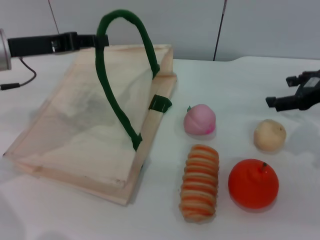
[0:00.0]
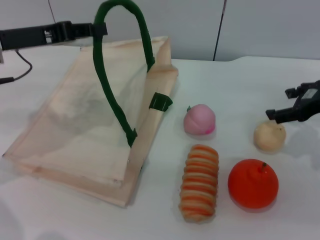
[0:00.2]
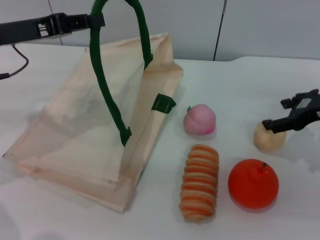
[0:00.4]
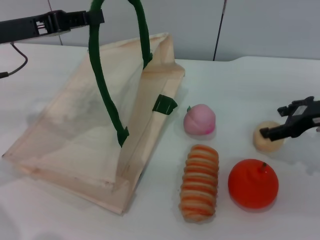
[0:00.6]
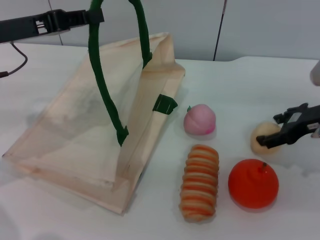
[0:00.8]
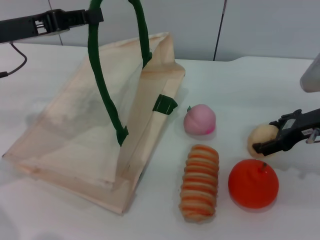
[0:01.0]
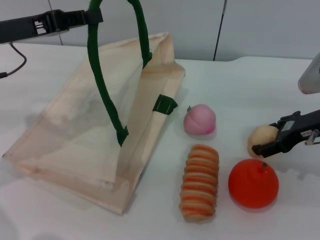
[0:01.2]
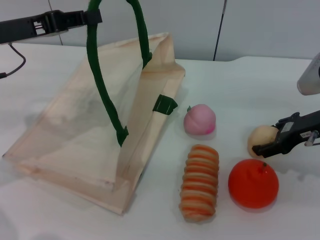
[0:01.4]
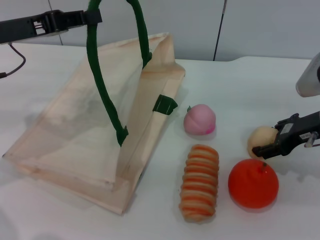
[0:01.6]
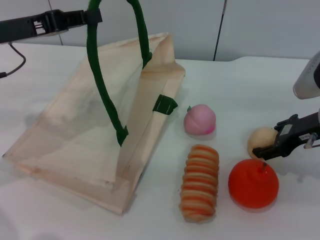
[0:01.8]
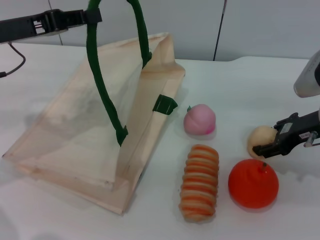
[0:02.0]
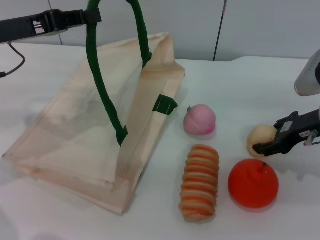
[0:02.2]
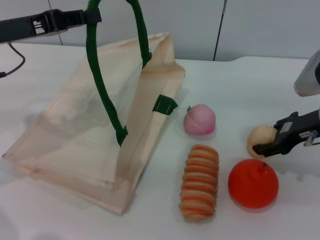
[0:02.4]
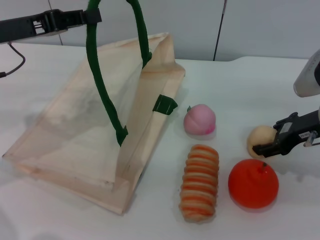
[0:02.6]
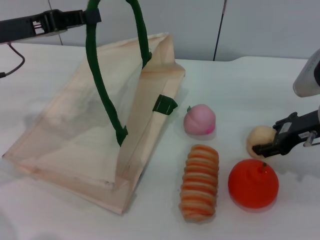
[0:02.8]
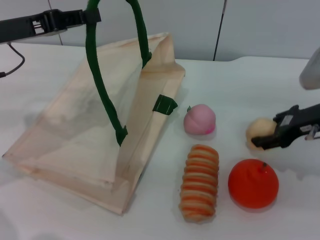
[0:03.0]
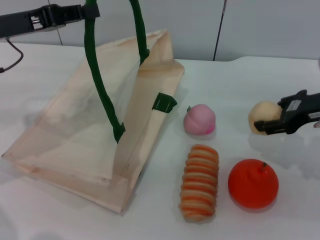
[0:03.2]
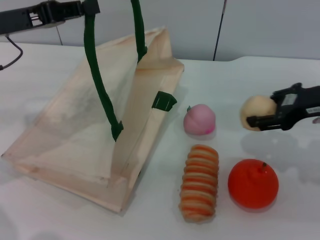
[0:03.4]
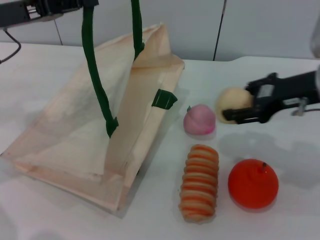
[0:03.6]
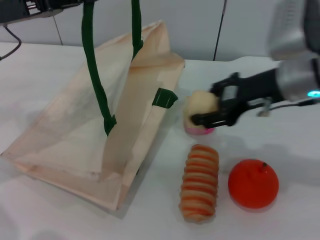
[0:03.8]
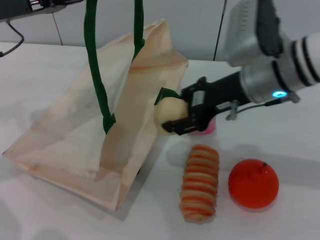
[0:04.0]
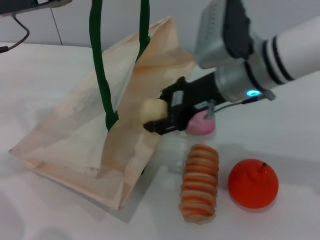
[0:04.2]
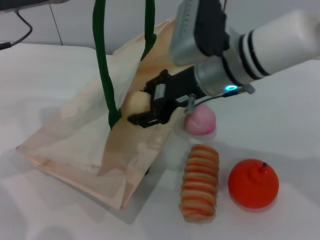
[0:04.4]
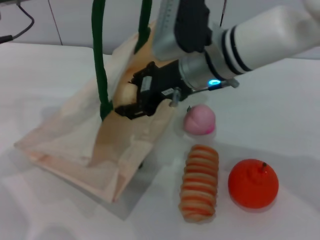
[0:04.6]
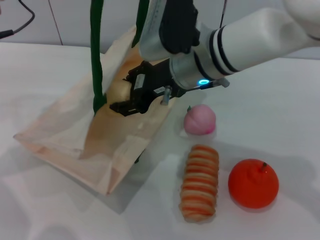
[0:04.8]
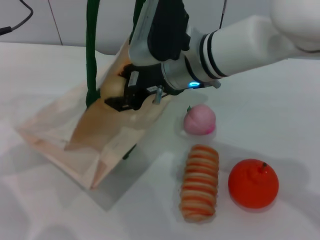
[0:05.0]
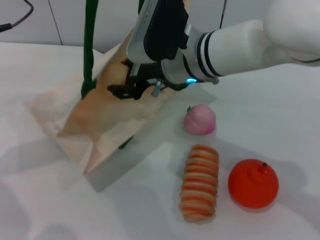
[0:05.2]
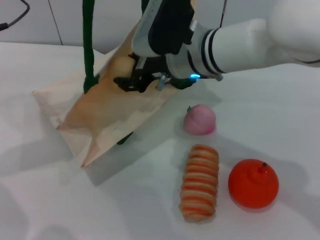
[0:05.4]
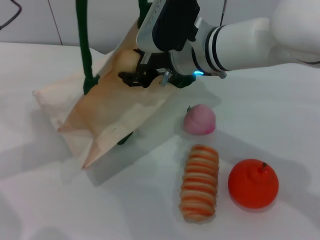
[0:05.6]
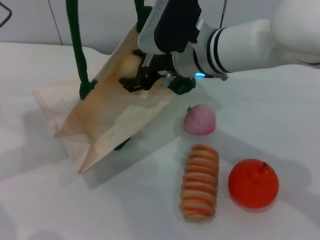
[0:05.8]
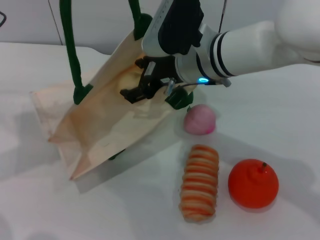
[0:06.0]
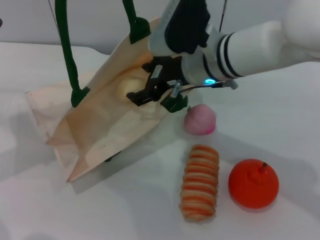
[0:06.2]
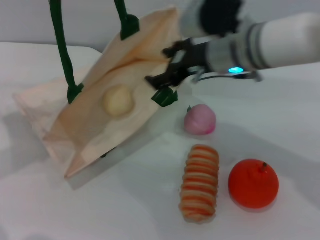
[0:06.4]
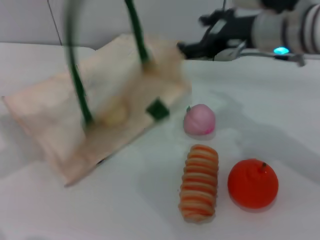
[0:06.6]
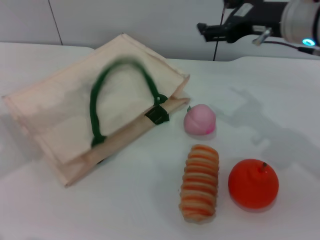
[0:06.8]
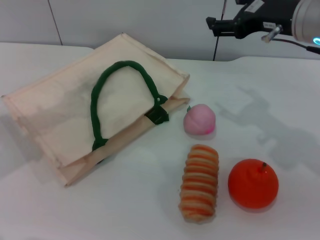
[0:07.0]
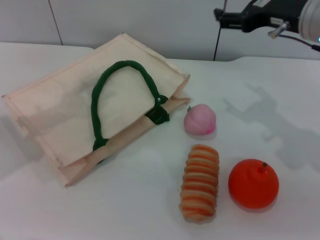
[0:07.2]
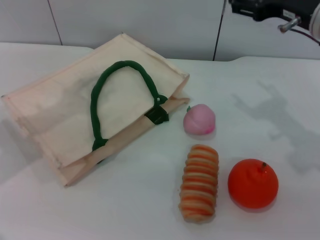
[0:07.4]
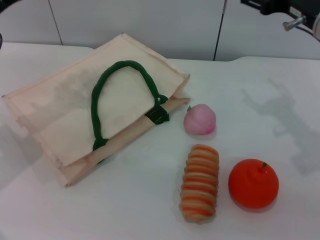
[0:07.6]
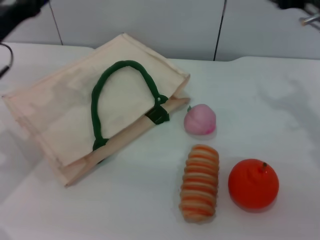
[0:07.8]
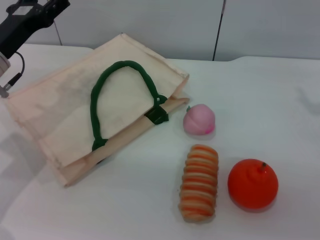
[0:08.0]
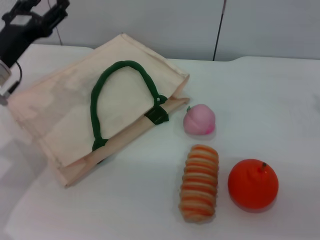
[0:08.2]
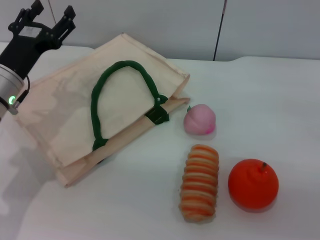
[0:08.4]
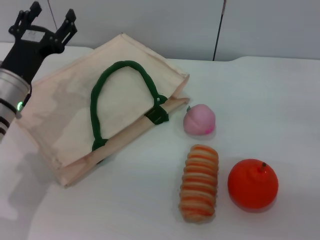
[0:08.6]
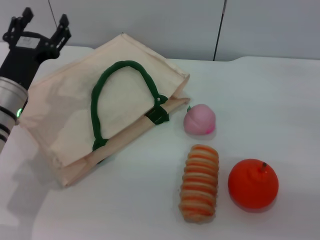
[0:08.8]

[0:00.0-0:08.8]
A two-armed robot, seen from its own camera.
Task of the whole recording: pick up the egg yolk pastry from the table and place it in the white handbag.
Step, 0:00.0 to 0:03.4: Pick up the egg yolk pastry with the right gripper.
Step, 0:03.6 to 0:06.6: Place the egg yolk pastry into the woven bag with the right gripper.
Step, 0:06.8 to 0:08.4: Lower the woven bag with the left gripper to close it.
0:00.0 to 0:01.4: The right gripper moves downward, roughly 5 cm.
0:01.4 to 0:03.0: The right gripper closes up.
0:03.0 to 0:04.4: The right gripper shifts about 20 cm to the left.
0:05.8 to 0:07.4: The left gripper opens up. Meanwhile the right gripper travels to the right by approximately 15 cm, and opens its fingers.
0:07.4 to 0:08.8: The left gripper heads downward and to the right, covering roughly 15 cm; the right gripper shifts about 20 cm to the right, downward and backward.

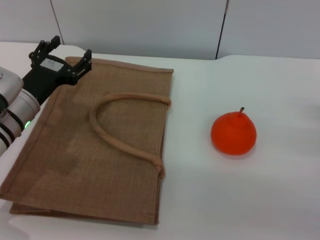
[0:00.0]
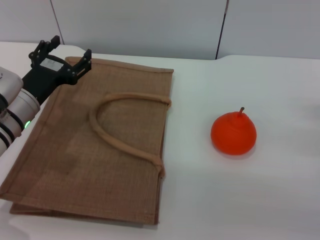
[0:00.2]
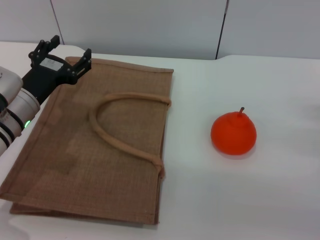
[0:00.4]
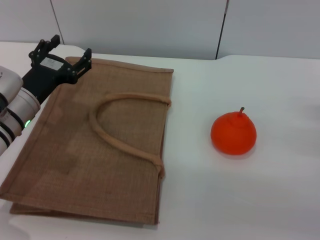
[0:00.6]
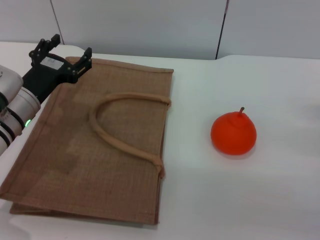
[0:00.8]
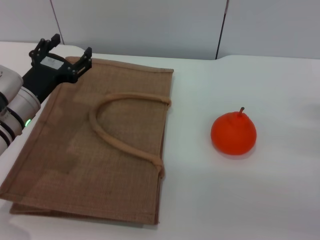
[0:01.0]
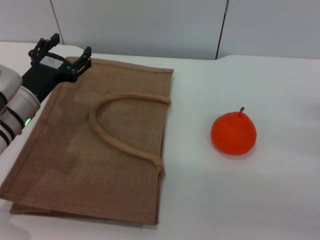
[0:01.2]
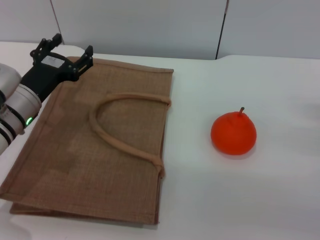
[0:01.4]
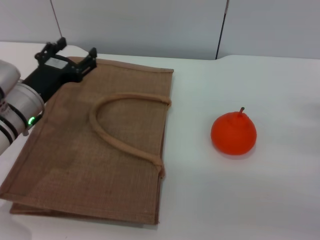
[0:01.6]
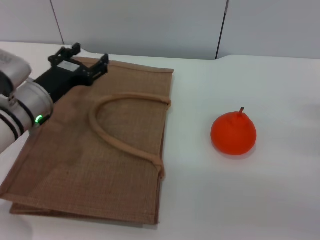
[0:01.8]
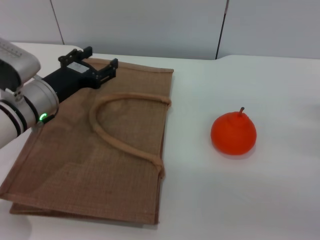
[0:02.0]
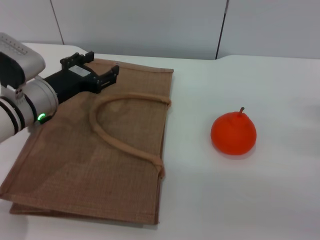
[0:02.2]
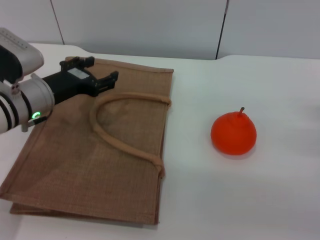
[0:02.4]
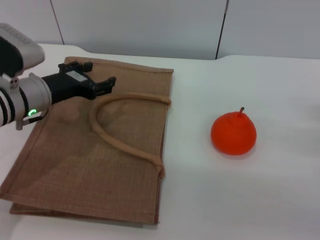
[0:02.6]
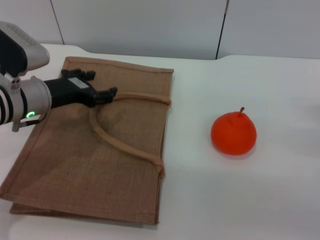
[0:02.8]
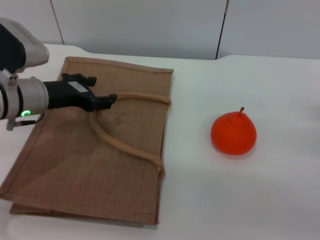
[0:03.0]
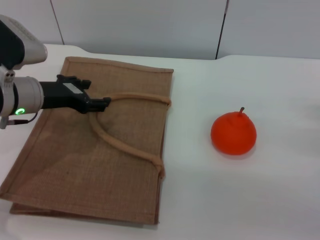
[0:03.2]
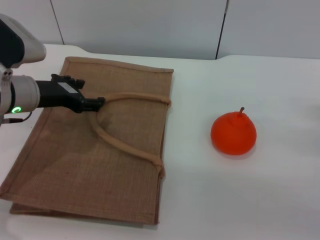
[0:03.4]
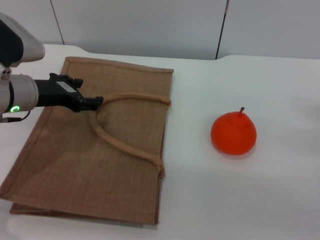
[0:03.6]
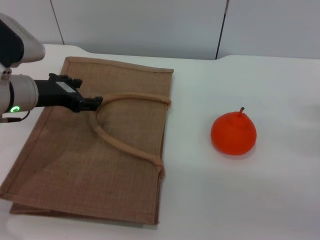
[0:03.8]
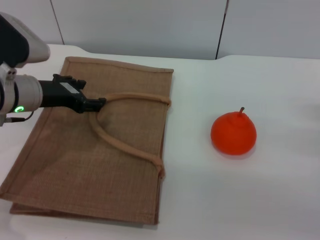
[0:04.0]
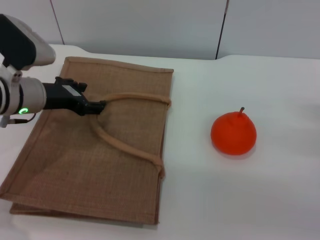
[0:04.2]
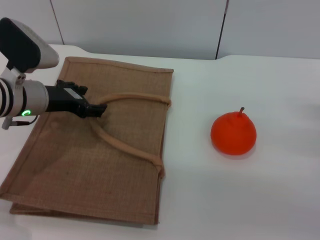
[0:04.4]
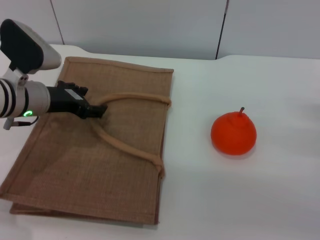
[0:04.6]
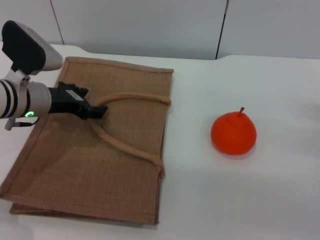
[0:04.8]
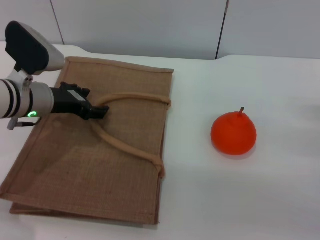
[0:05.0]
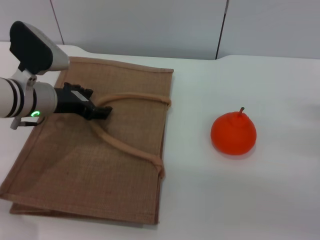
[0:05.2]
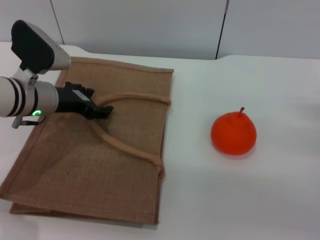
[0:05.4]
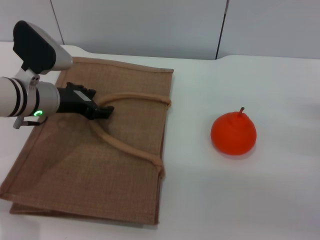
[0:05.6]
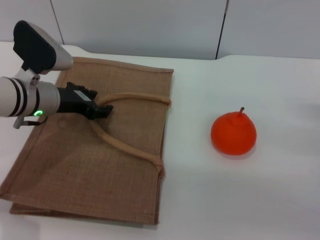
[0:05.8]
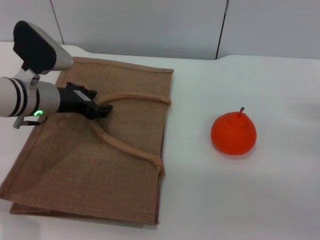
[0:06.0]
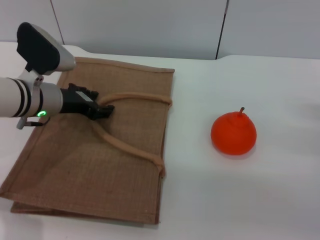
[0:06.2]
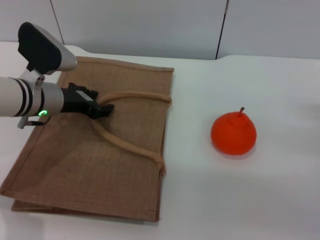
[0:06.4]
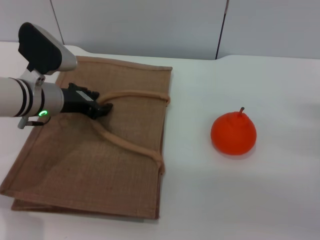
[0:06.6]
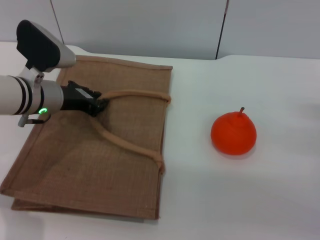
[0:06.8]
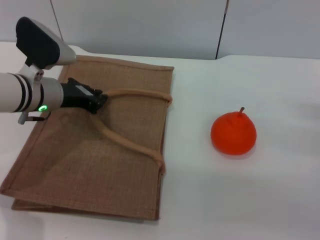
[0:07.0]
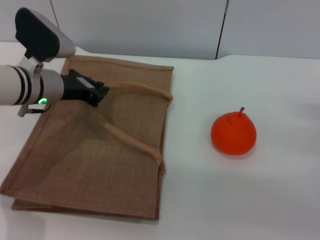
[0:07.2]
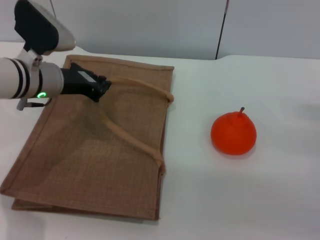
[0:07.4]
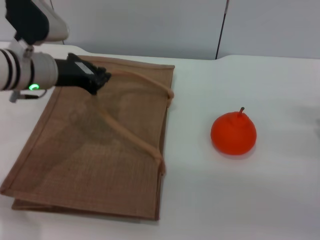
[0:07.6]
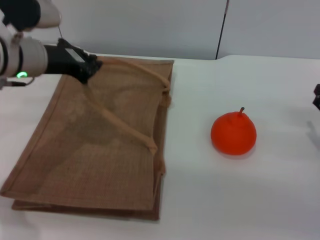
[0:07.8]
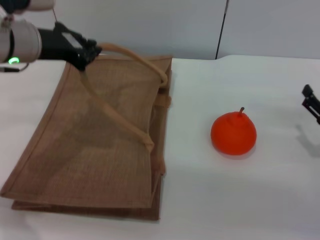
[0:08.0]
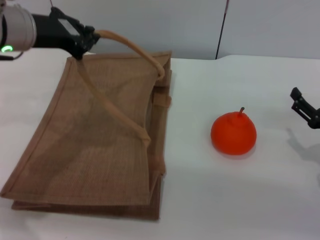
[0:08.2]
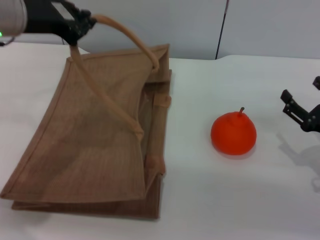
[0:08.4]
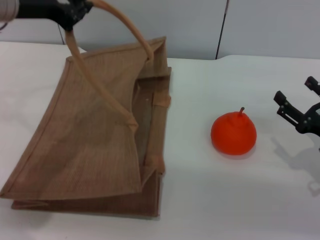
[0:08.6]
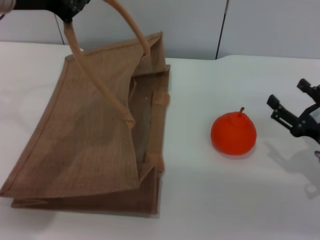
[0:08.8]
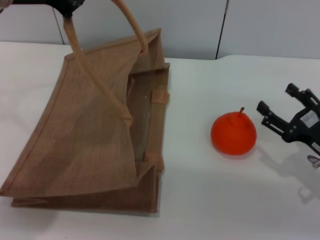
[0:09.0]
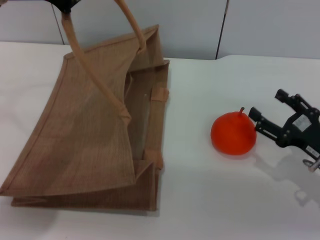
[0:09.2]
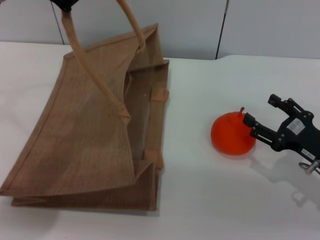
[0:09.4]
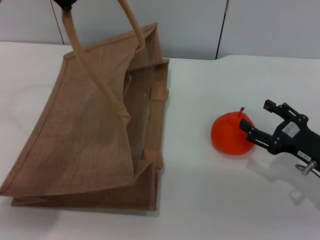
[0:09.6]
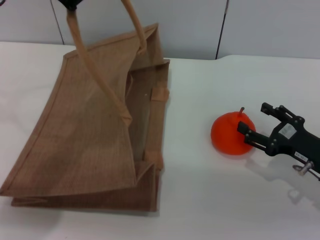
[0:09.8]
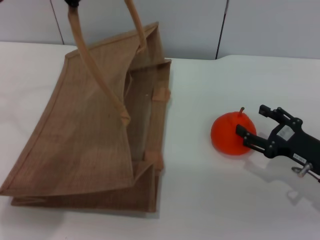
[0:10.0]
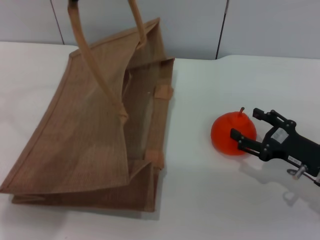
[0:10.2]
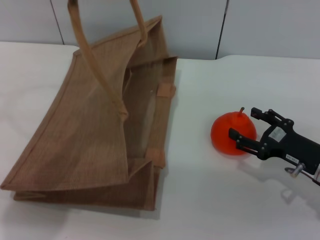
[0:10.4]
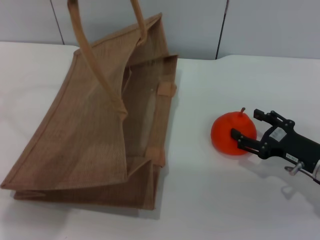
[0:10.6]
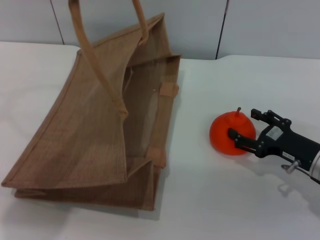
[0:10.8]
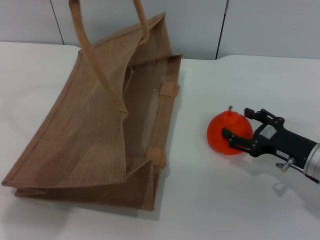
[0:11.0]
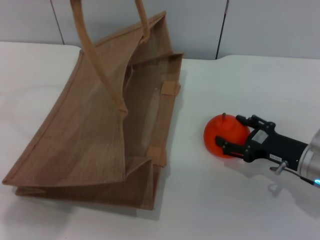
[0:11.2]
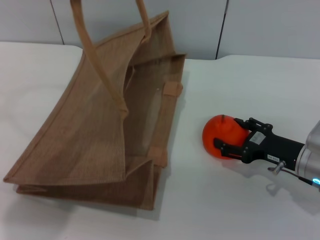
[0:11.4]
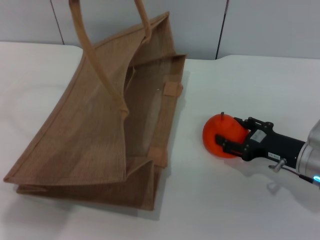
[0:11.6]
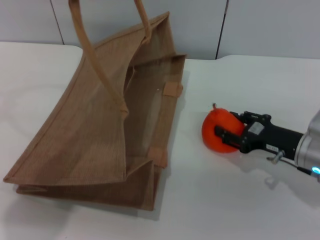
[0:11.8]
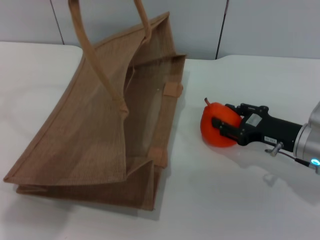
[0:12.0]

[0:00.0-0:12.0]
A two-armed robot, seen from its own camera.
Task of the whole recording: pick up the orange from the table and place it in the brown handbag.
Step, 0:00.0 to 0:08.2: Lift the woven bag with the left gripper to open it.
0:00.0 to 0:01.6: The grippers stay close to where they were, moving slightly.
0:03.0 to 0:06.0: The grippers make only small movements.
0:06.0 to 0:07.6: The left gripper heads upward, covering some 5 cm, and closes up.
0:07.6 to 0:09.0: The left gripper moves upward, some 15 cm.
0:09.0 to 0:10.4: The grippers make only small movements.
0:10.4 to 0:12.0: The right gripper moves roughly 5 cm.

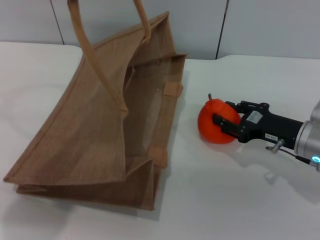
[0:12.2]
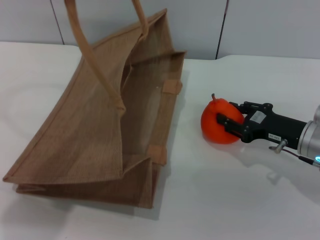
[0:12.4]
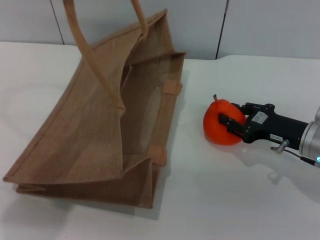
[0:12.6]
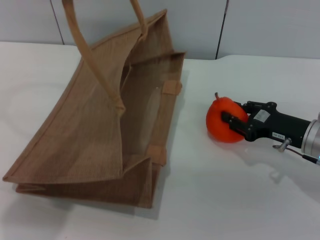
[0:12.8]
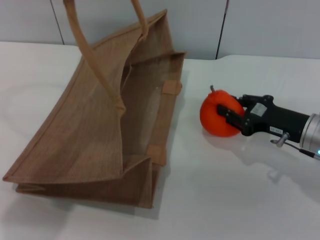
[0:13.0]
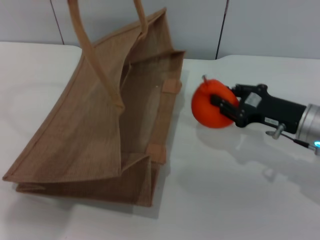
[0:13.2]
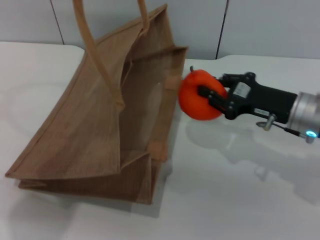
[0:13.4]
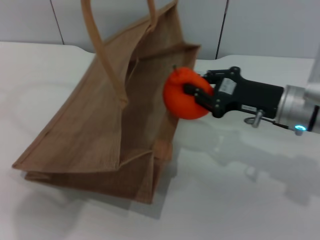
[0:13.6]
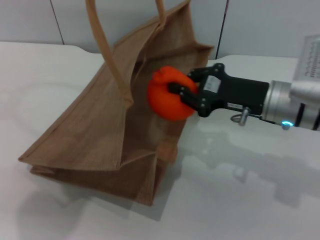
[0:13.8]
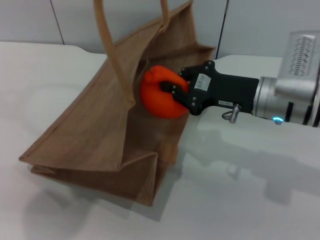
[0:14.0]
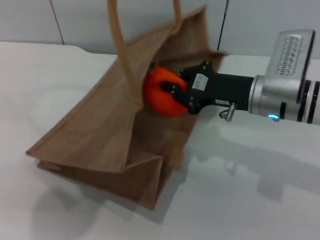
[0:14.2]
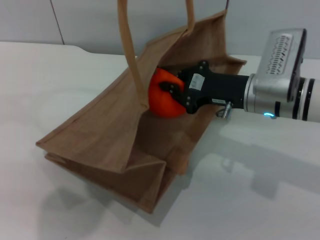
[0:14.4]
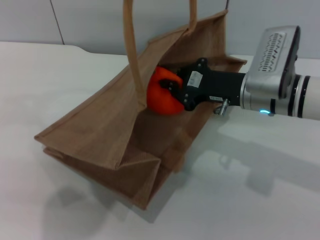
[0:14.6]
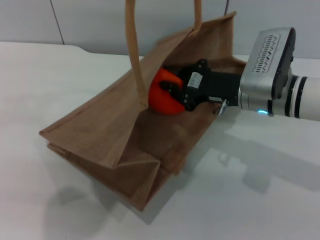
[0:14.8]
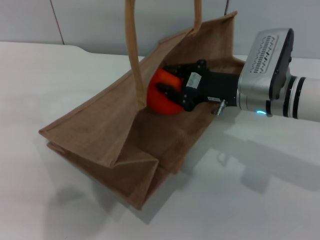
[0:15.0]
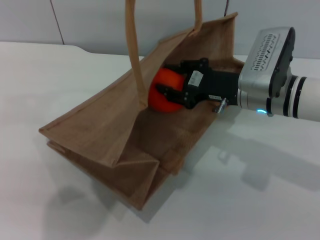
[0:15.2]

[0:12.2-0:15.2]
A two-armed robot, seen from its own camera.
Task of the whole recording: pick up the orange from the table and place it in the brown handbag.
0:12.2 to 0:13.8: The right gripper heads to the left and upward, covering roughly 10 cm, and closes.
